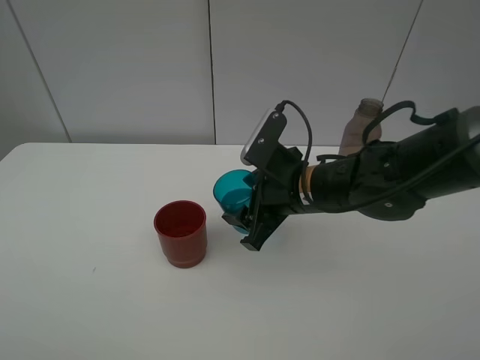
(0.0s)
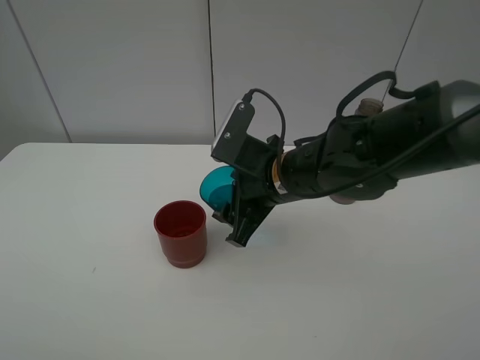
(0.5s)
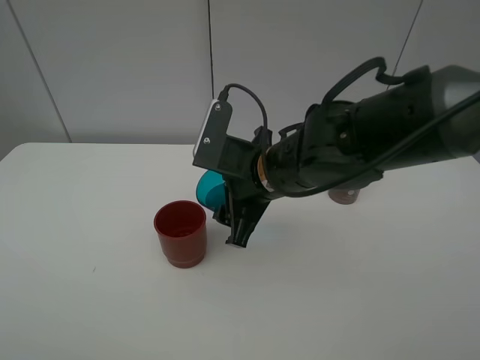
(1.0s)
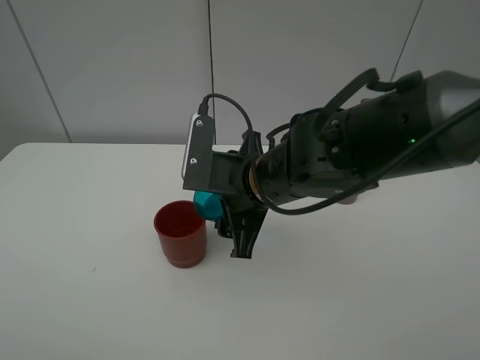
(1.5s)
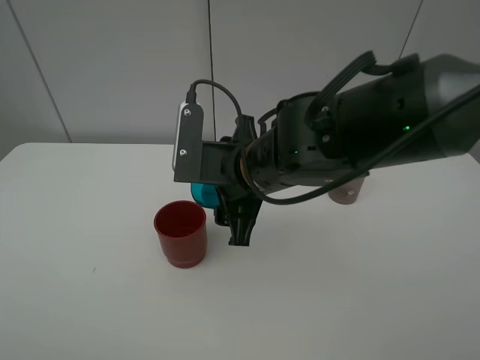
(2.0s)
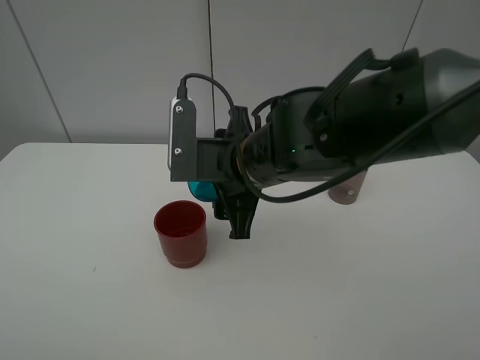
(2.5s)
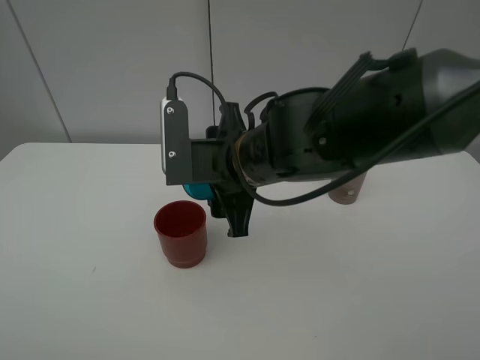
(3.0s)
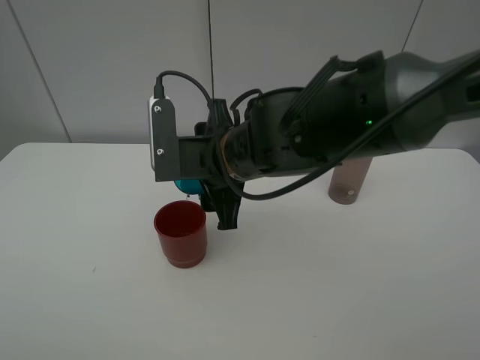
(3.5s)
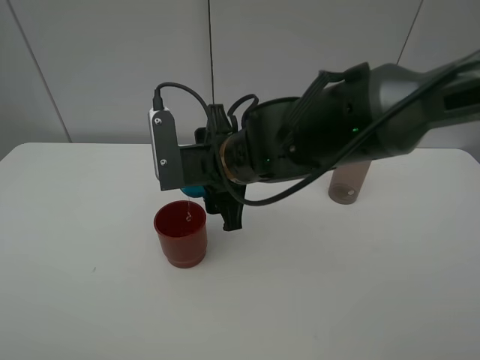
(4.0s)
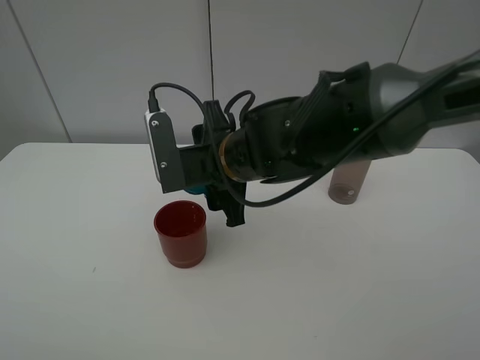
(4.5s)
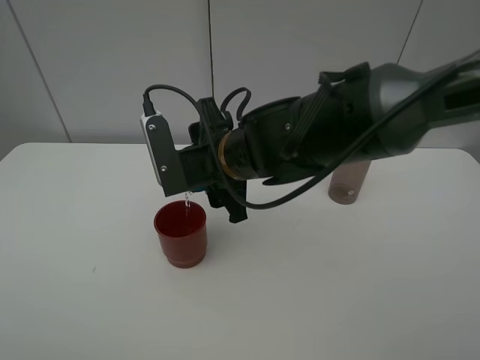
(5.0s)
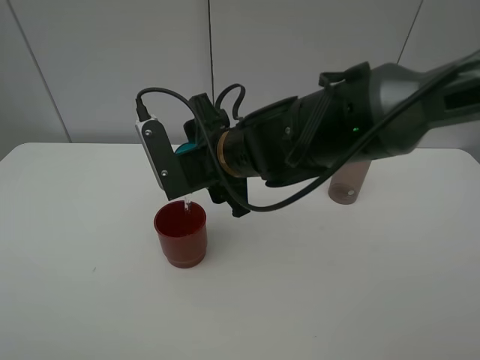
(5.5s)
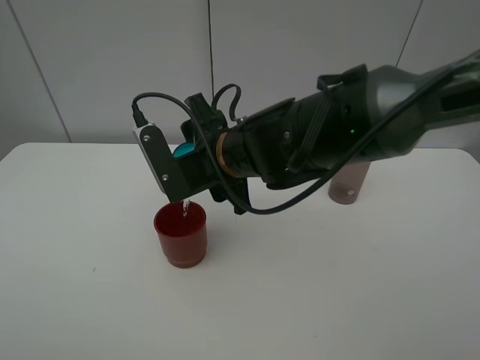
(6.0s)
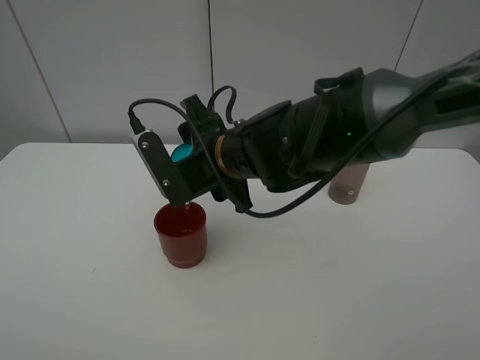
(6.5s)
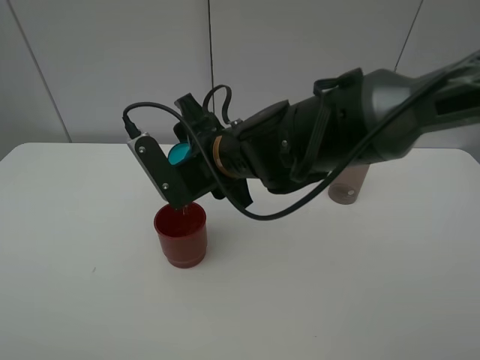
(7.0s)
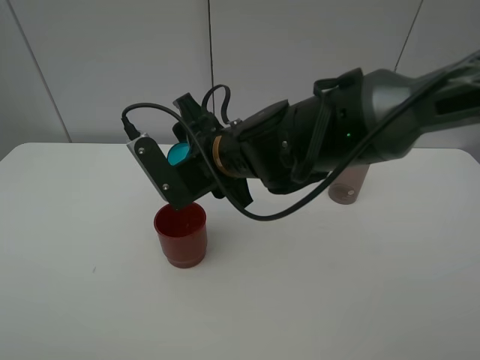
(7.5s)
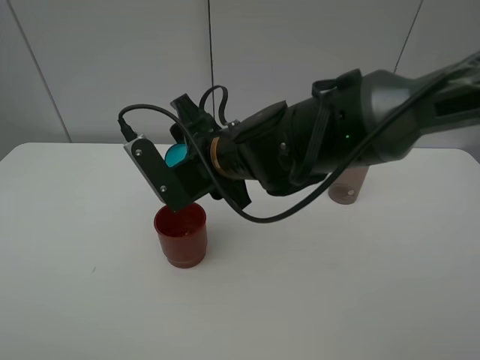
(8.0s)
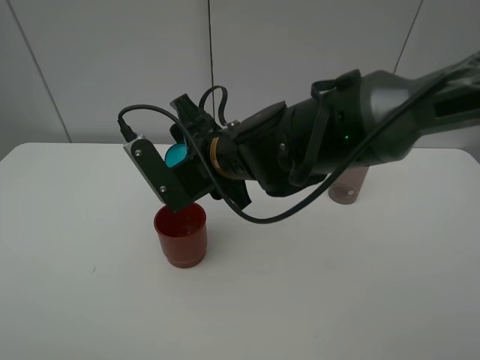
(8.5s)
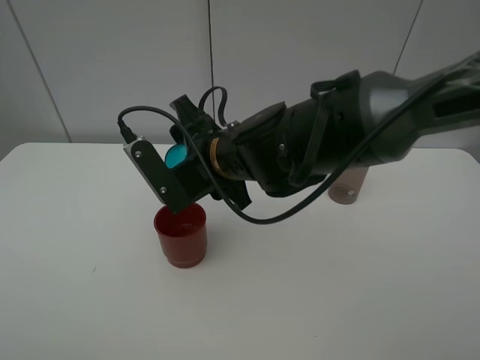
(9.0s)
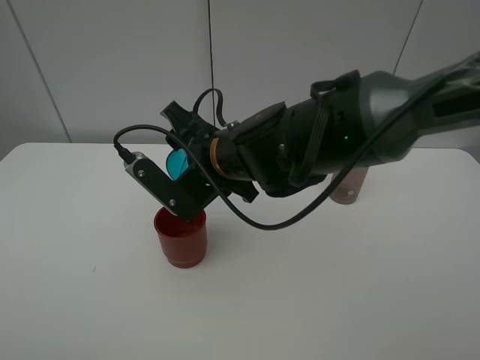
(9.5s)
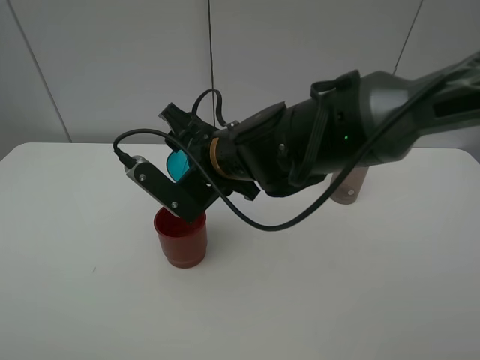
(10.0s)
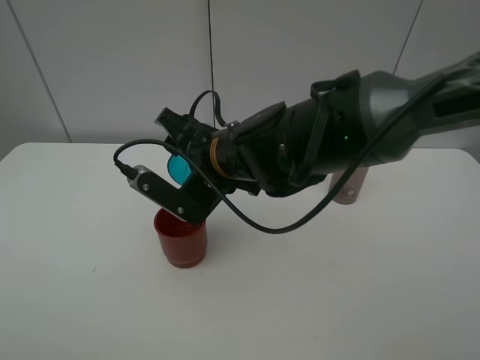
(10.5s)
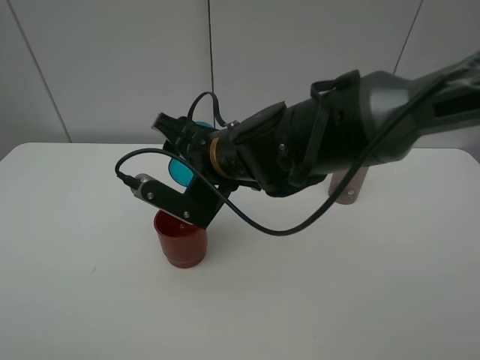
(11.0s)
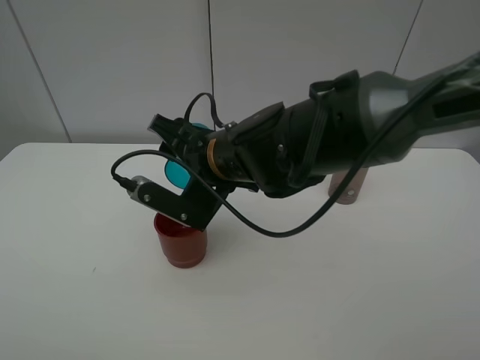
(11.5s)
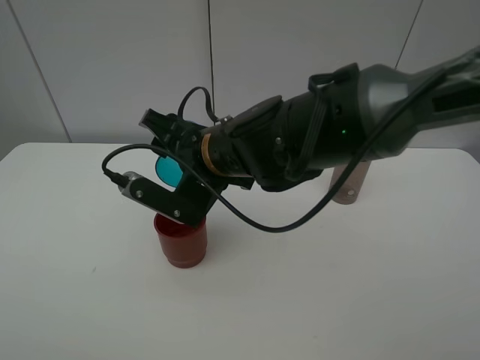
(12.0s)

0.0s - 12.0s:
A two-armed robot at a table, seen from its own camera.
Task of the whole recording: pick up the bottle and pour water into the cup, then pick up the cup containing water and pour it into another cup.
0.0s - 2.0s: The right gripper heads to the left, covering about 5 cm.
2.0s - 4.0s: There are only small adjustments of the grippers.
4.0s - 6.0s: The grippers move only a little.
6.0s - 8.0s: There are only small adjustments of the grippers.
8.0s - 10.0s: There are only small adjustments of the grippers.
10.0s - 12.0s: There are only small adjustments of the grippers.

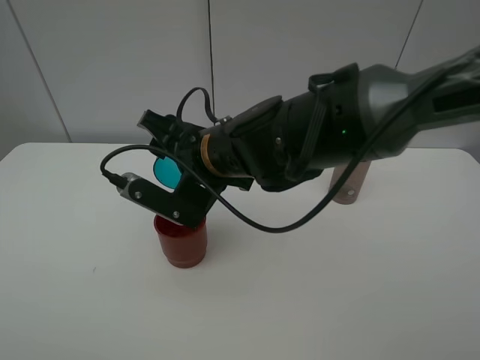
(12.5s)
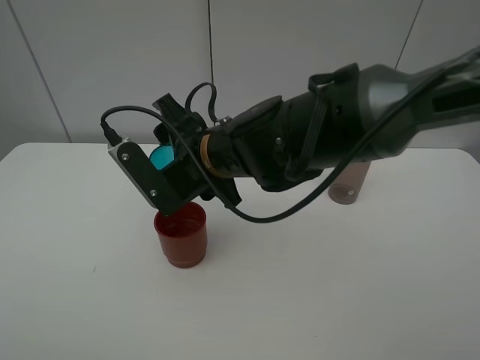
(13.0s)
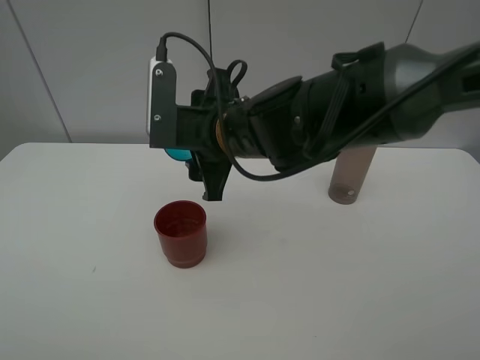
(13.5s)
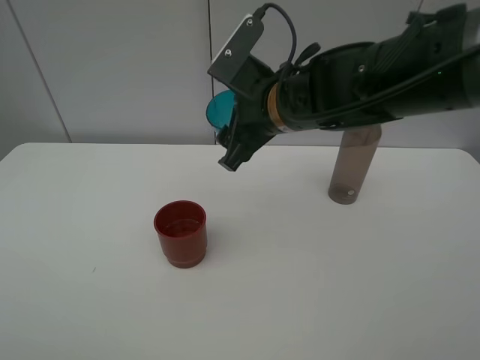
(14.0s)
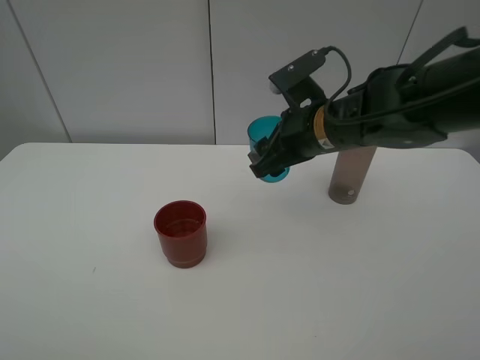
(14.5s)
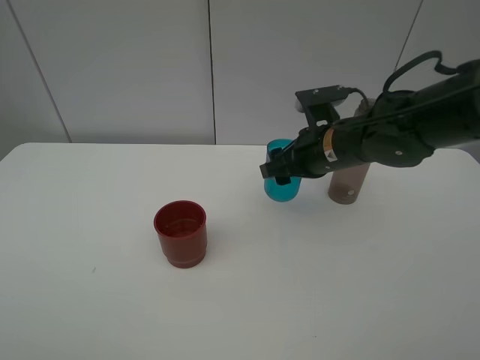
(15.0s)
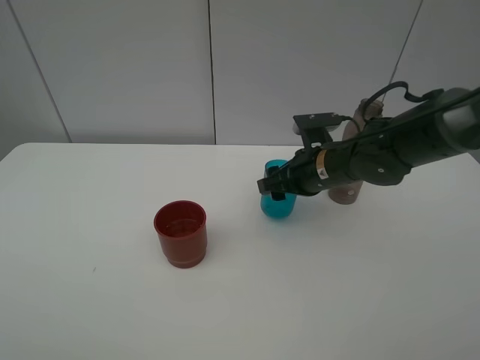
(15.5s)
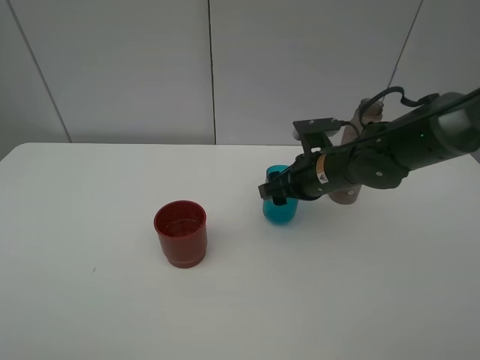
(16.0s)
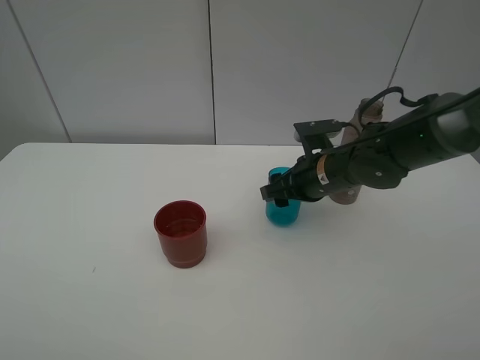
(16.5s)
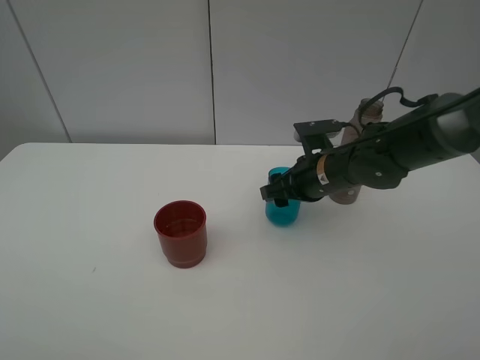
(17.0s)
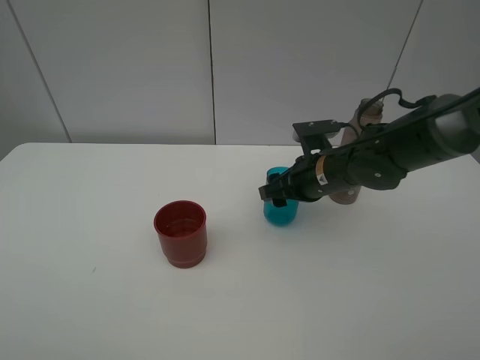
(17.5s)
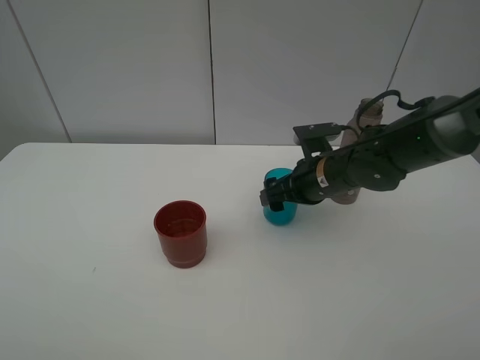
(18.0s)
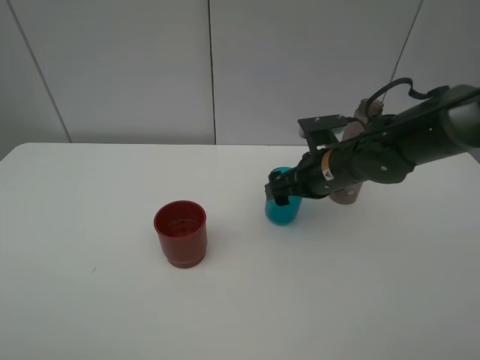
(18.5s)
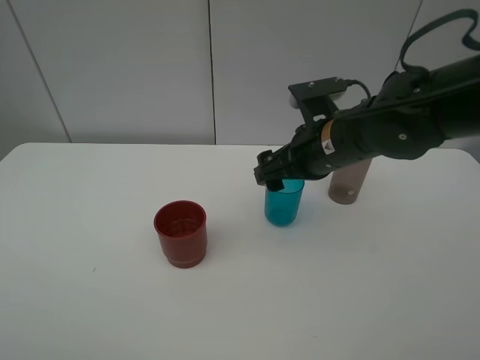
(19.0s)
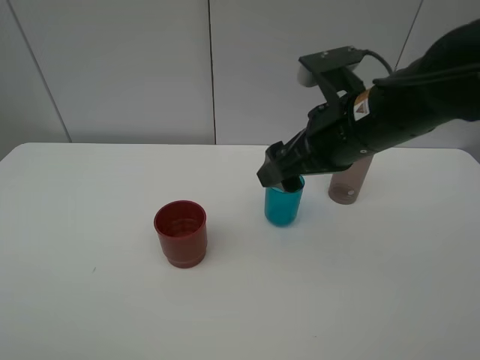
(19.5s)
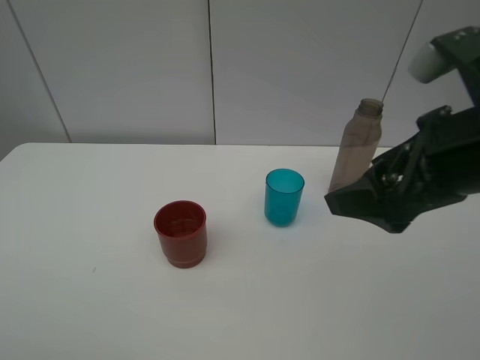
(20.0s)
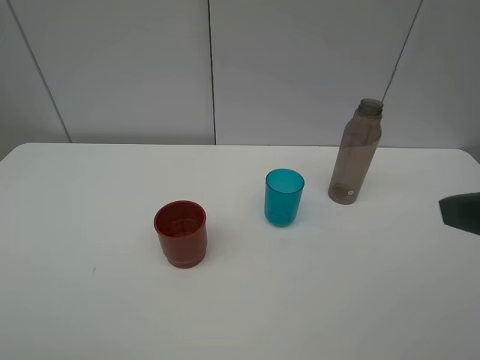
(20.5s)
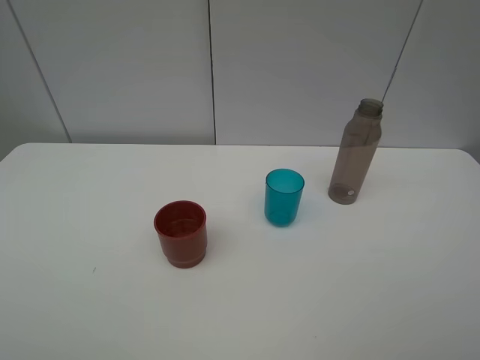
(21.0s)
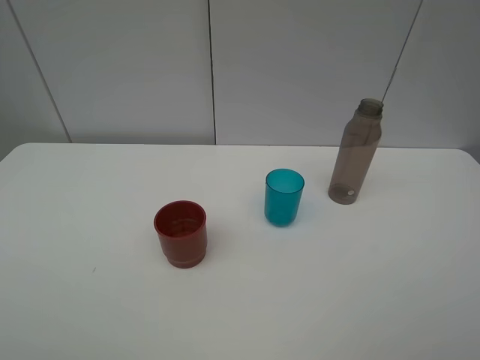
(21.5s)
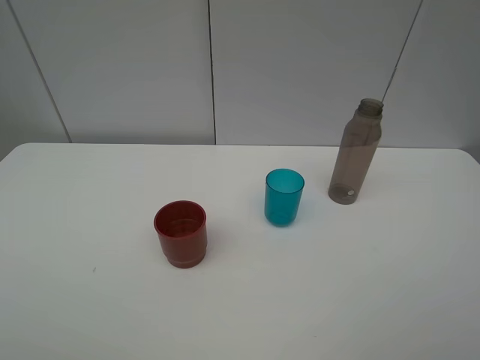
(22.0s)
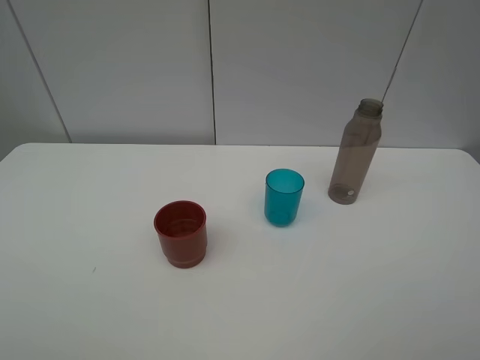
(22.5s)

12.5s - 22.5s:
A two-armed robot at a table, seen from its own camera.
Task of the whole recording: pick up the bottle and pour water into the cup, then pick up the cup containing water and pour it into another cup.
12.5s - 14.5s: The right gripper heads to the right, covering approximately 15 cm.
14.5s - 16.5s: The right gripper travels downward by about 10 cm.
16.5s - 18.5s: The right gripper opens up.
18.5s - 20.5s: The right gripper shifts some 30 cm backward, upward and to the right.
20.5s - 22.5s: The right gripper moves backward, roughly 10 cm.

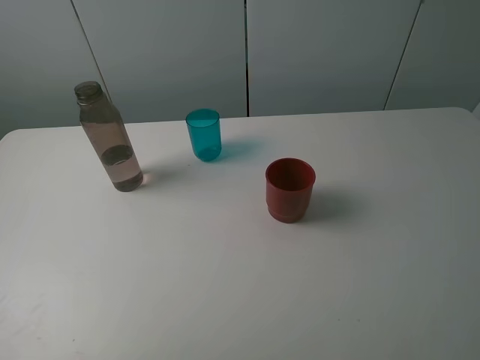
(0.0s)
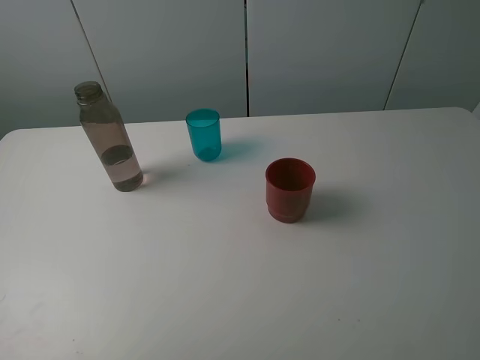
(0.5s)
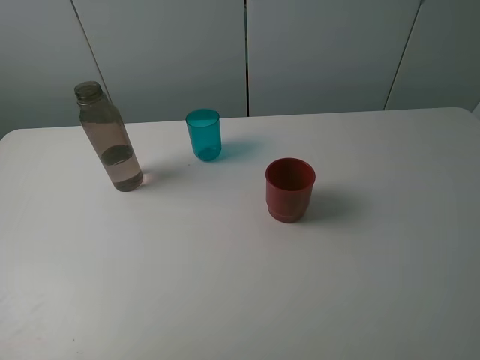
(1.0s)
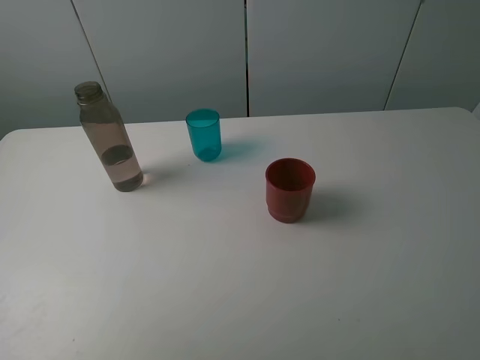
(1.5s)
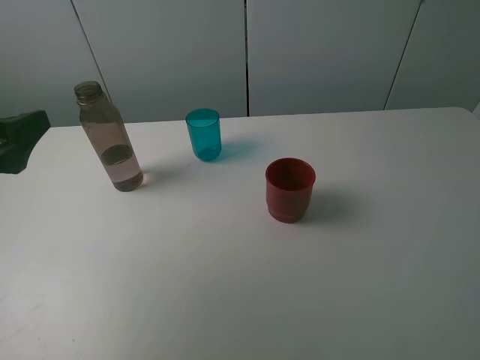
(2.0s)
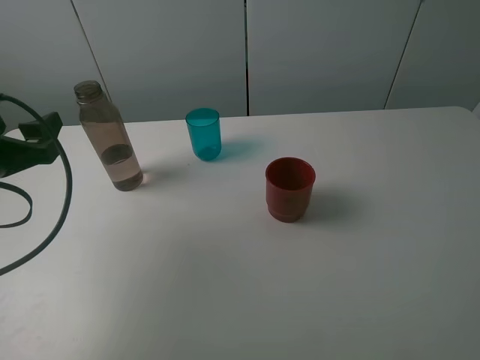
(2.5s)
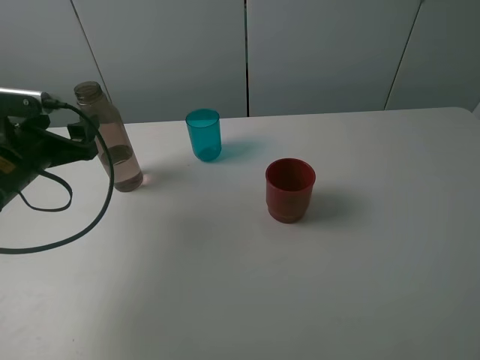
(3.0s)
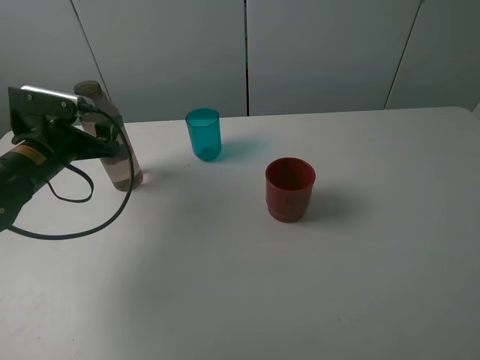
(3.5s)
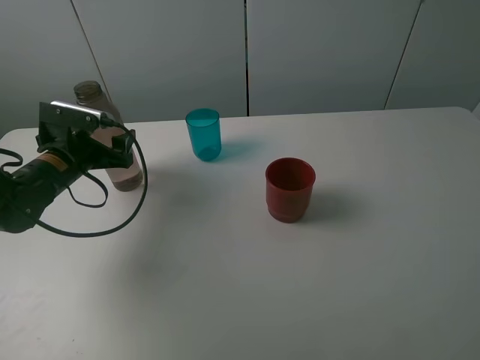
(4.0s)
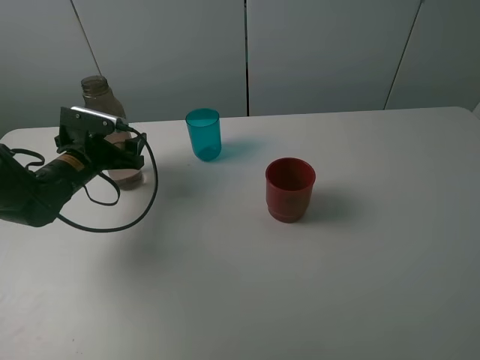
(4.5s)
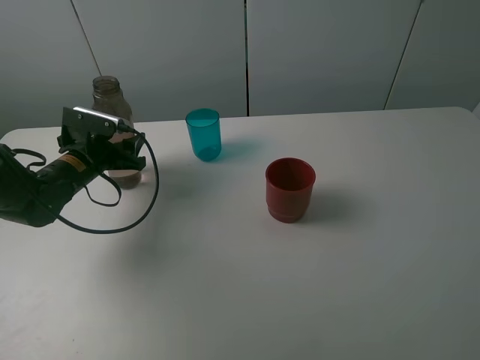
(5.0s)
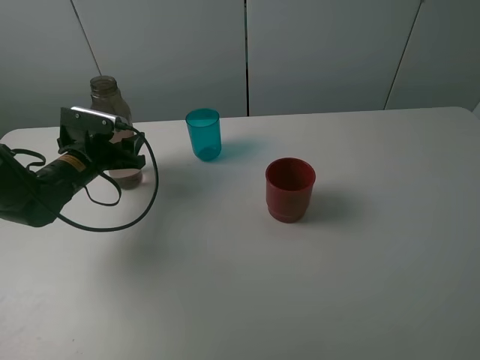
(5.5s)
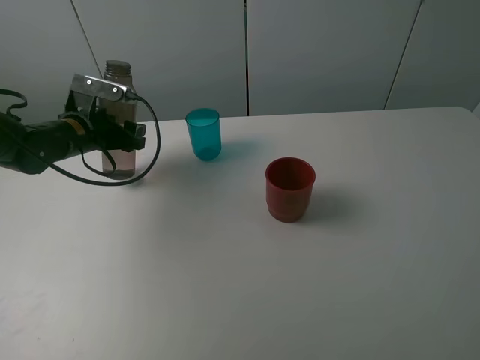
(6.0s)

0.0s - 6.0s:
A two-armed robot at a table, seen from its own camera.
Task of the whole recording: pick up the bottle and pour water into the cup, then pick up the cup containing water and pour it into another cup.
0.0s - 2.0s: The left gripper heads forward, covering roughly 15 cm.
2.0s - 4.0s: The left gripper shifts about 20 cm forward and downward.
4.0s - 6.0s: The left gripper goes some 5 cm forward, and closes up.
